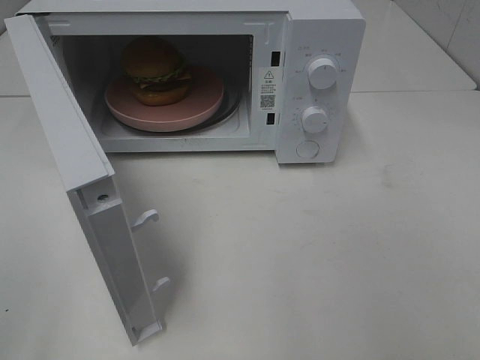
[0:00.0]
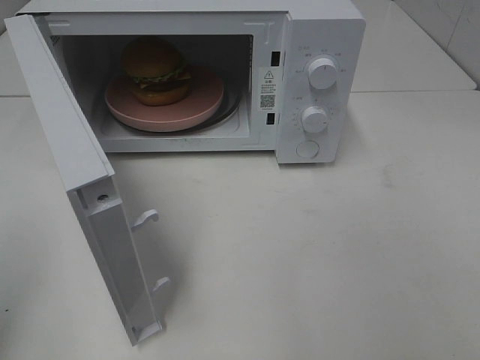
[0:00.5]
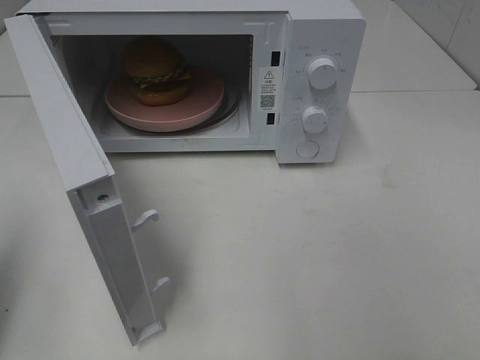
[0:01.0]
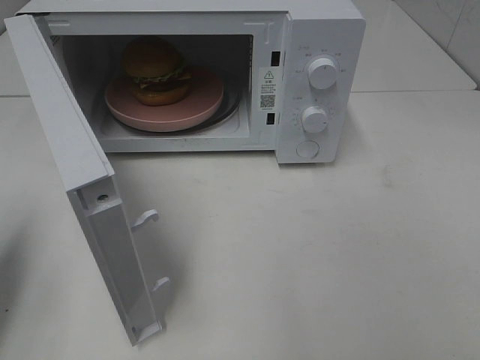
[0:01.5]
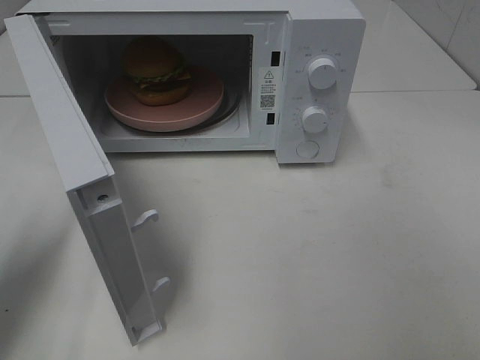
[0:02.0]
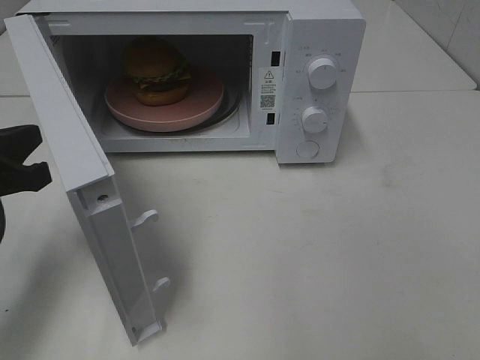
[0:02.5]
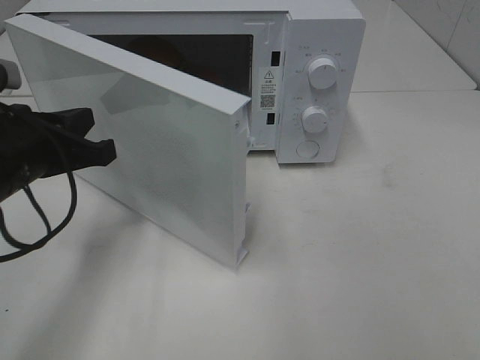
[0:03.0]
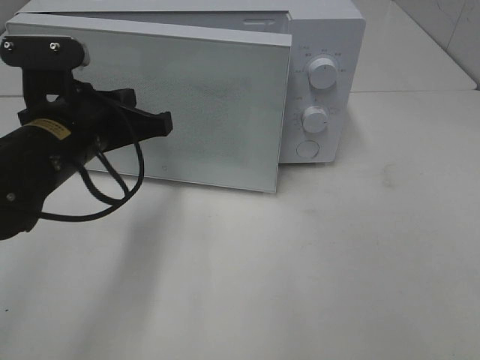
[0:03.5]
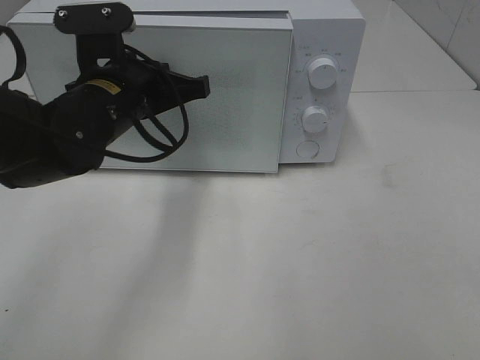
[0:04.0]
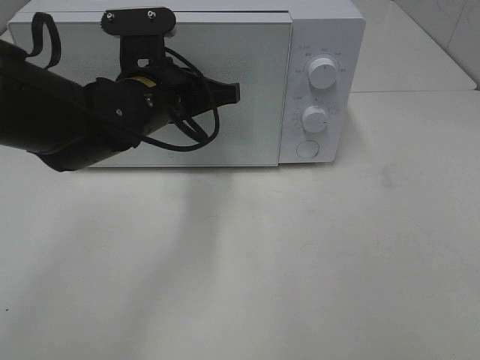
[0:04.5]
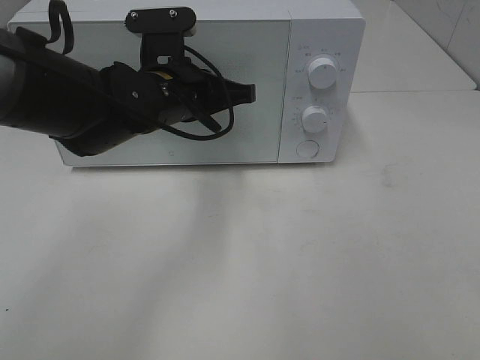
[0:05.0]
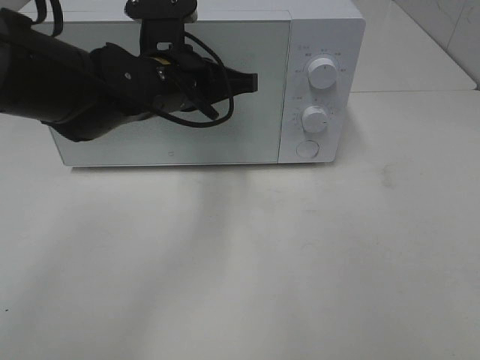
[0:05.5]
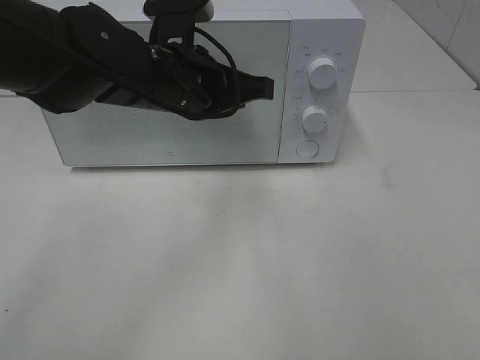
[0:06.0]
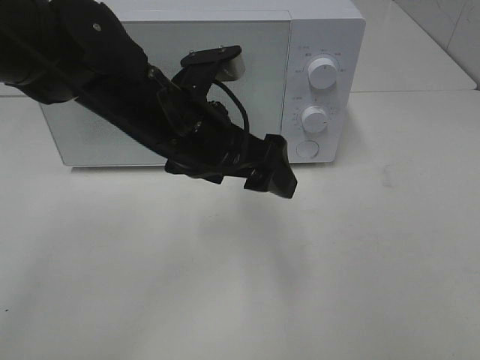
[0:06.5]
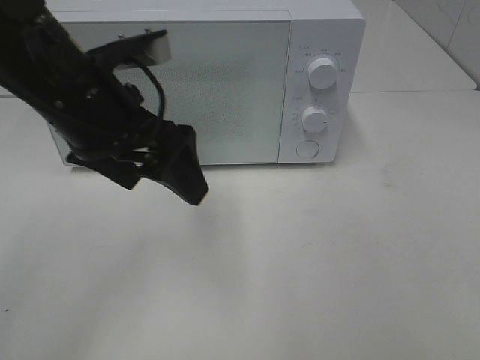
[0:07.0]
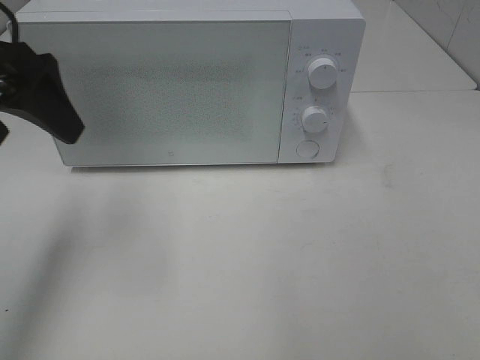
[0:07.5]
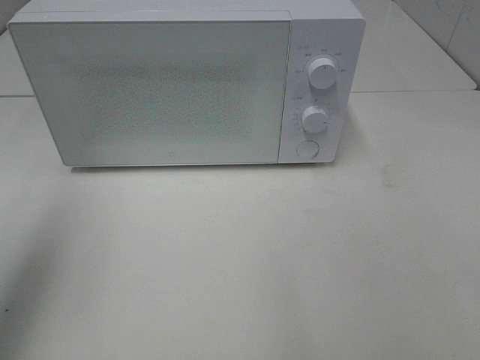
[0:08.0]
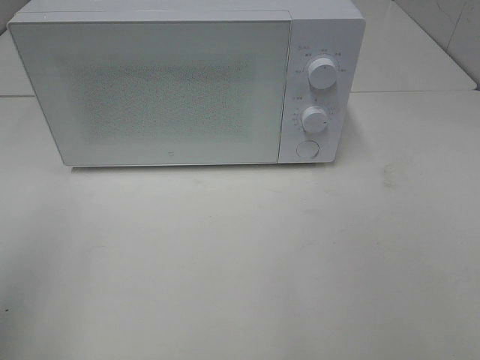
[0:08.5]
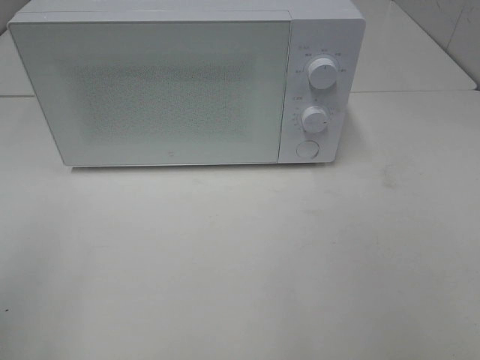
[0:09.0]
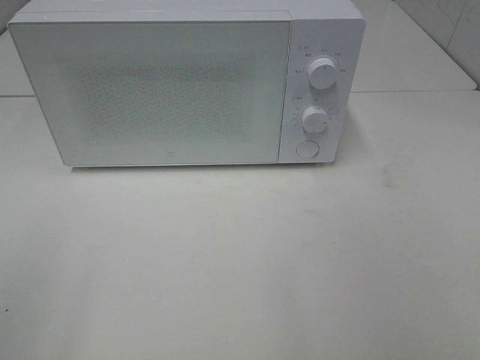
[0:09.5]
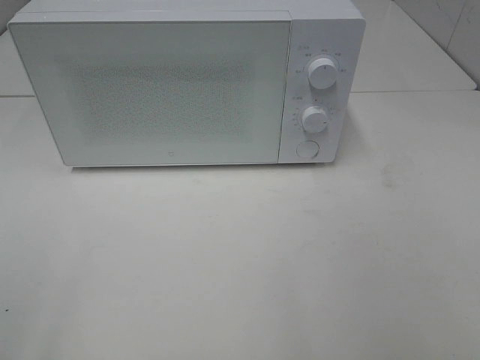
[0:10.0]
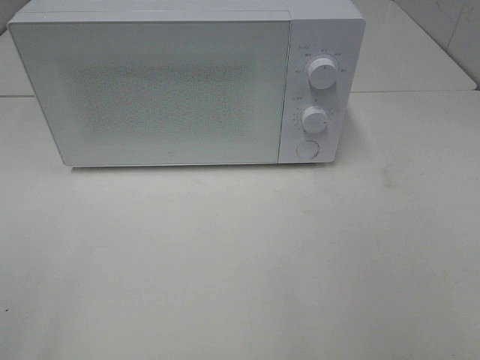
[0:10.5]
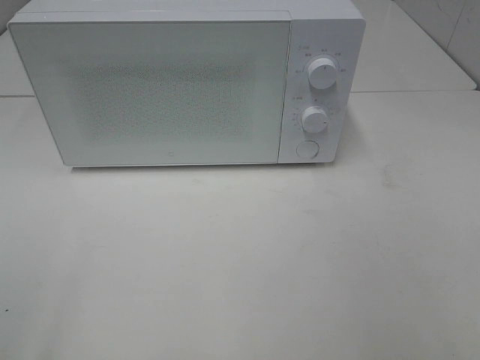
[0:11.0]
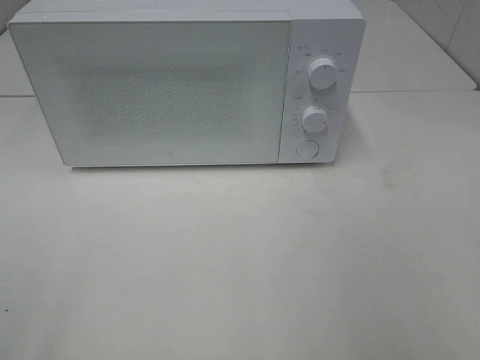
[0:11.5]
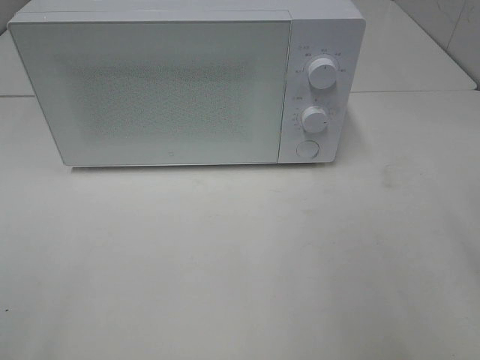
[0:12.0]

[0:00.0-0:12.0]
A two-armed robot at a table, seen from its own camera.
Task of the whole recording: Heat the burger.
Step, 0:00.0 to 0:06.0: Left hand: close the microwave door.
0:00.0 to 0:02.0: The left gripper moves forward and downward, approximately 20 cm, and closes its fingers.
0:02.0 to 0:04.0: The left gripper is displaced to the right and forward by roughly 20 cm.
0:04.0 to 0:06.0: The left gripper moves to the right, some 5 cm.
0:06.0 to 0:08.0: The left gripper shifts about 30 cm to the left, upward and backward, and opens its fingers.
0:08.0 to 0:10.0: The left gripper is displaced backward by roughly 20 cm.

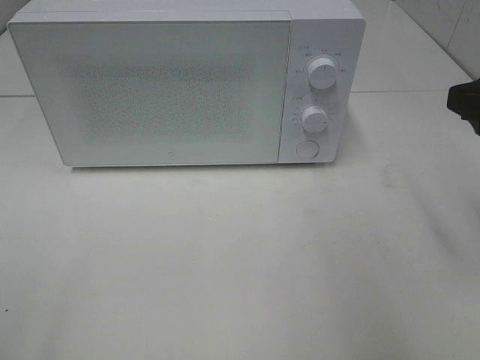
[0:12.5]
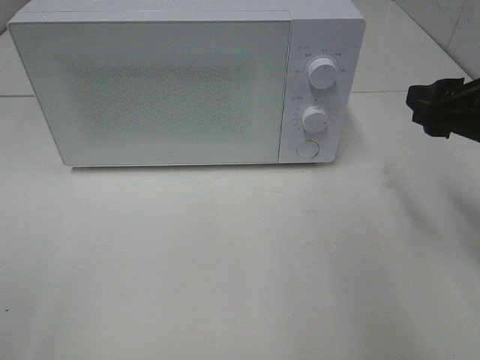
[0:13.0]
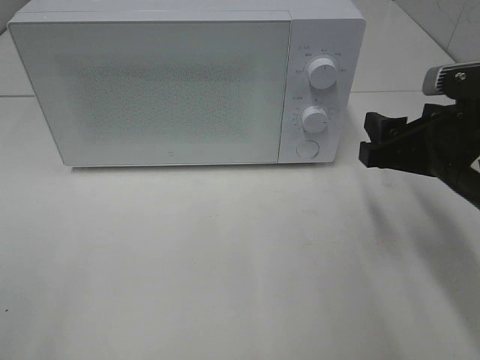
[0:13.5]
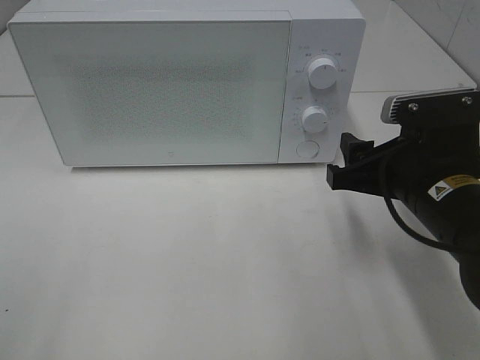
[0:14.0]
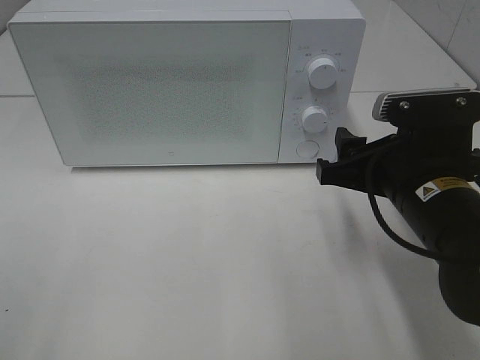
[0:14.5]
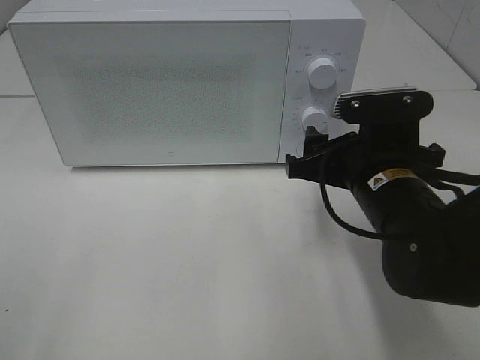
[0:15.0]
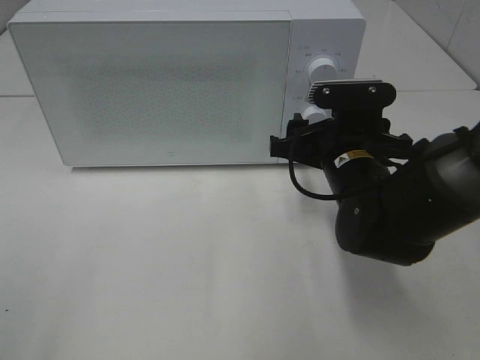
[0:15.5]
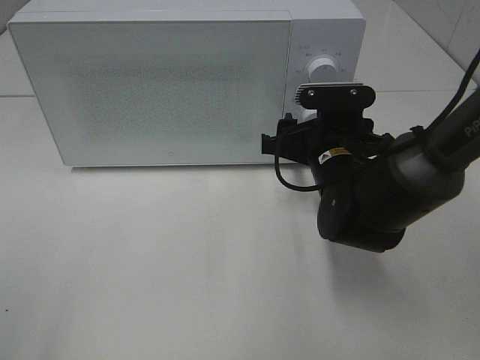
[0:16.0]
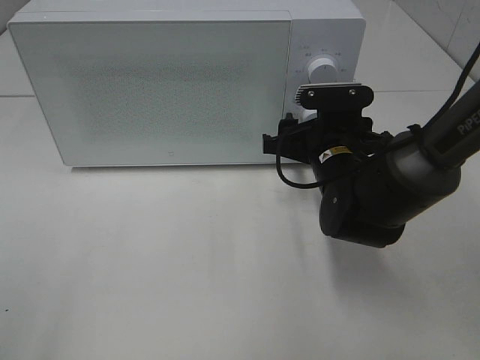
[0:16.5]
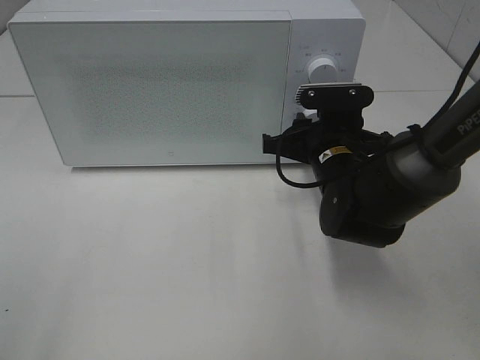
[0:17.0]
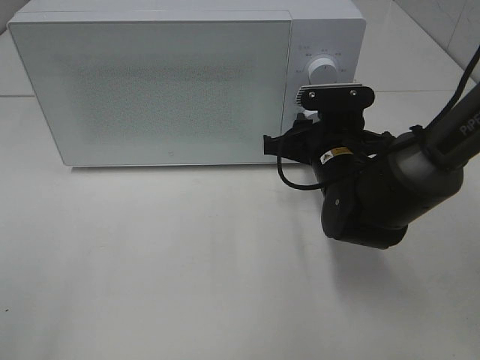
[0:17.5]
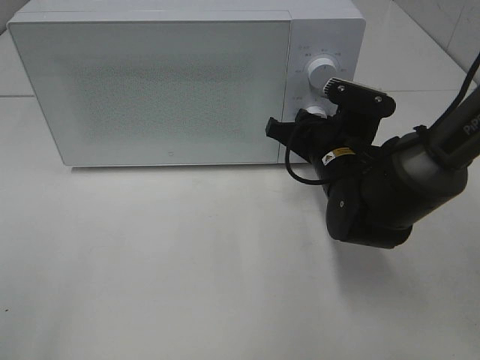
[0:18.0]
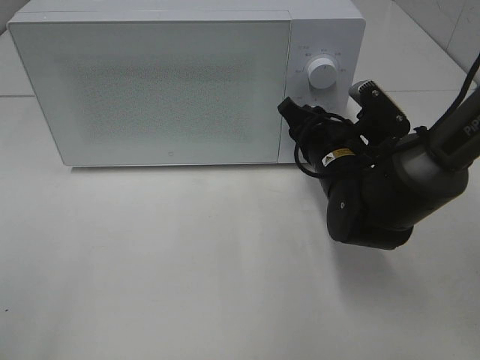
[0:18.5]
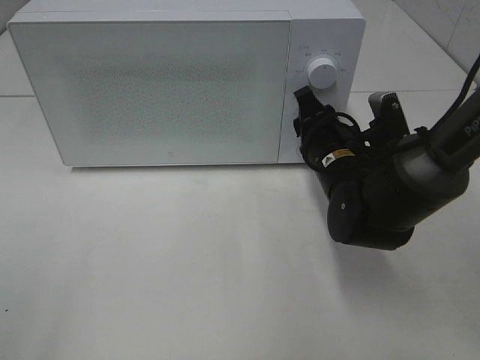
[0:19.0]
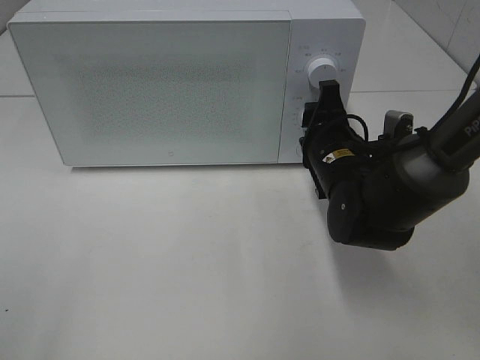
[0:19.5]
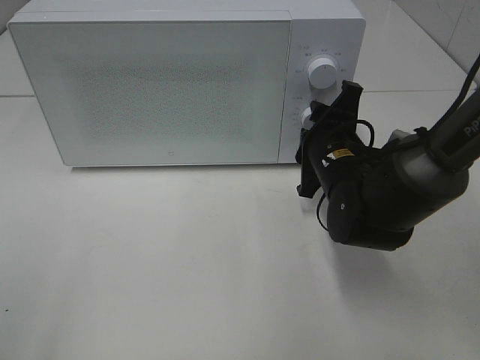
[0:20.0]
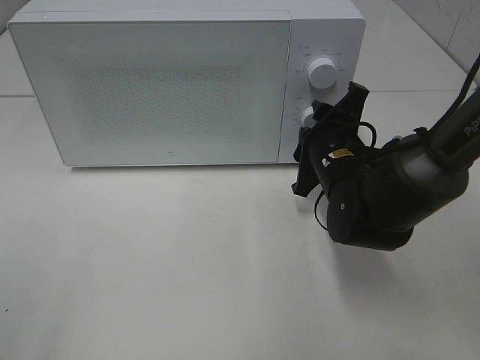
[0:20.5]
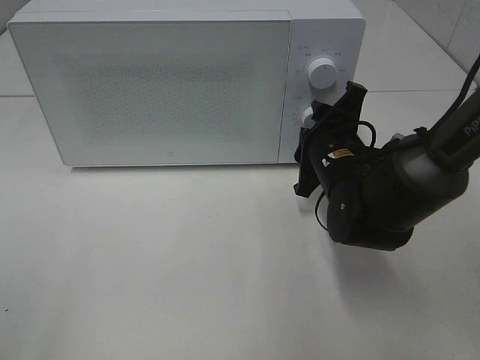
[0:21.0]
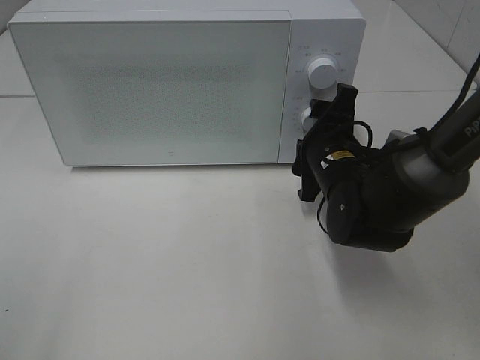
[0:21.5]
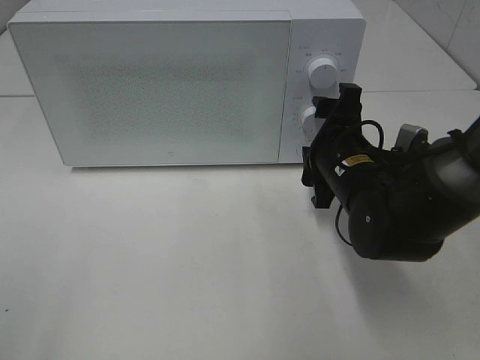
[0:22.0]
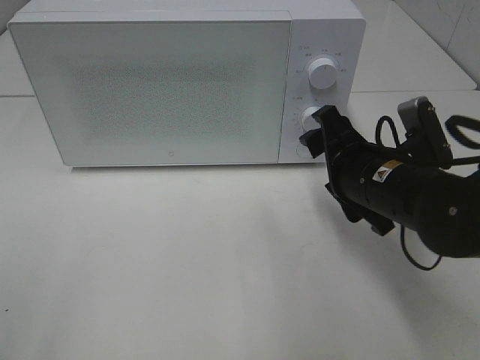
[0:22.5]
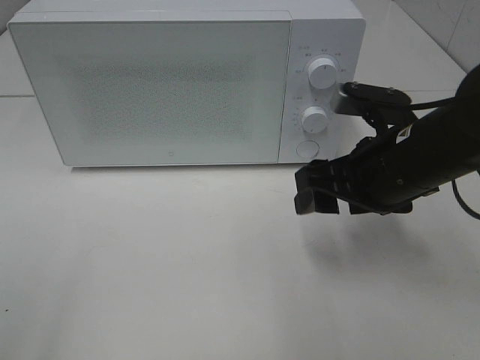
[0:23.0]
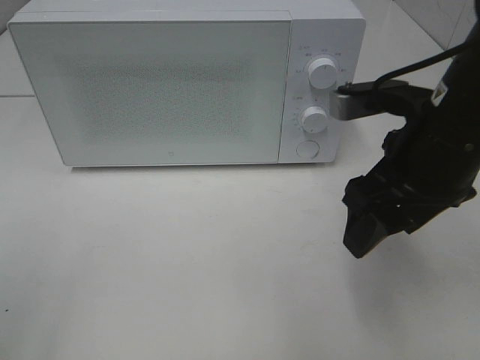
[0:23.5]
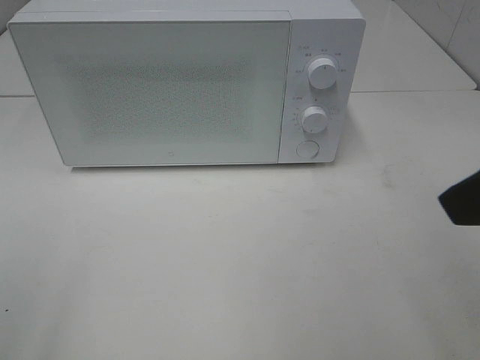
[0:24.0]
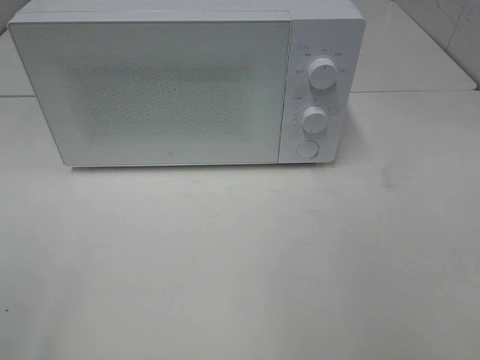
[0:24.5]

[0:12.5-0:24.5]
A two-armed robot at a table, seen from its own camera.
Task of the whole recording: Heat the burger.
Step, 0:12.5 to 0:21.5: Right hand: twist timer button.
0:12.5 to 0:14.5: The right gripper is displaced downward and to the left by roughly 15 cm.
0:14.5 to 0:16.5: The right gripper moves forward and downward, some 10 cm.
0:16.5 to 0:18.5: The right gripper closes up.
0:20.5 to 0:22.5: The right gripper is displaced backward by about 5 cm, and opens its fingers.
0:22.5 to 0:24.5: The right gripper moves backward, upward and to the right, roughly 30 cm.

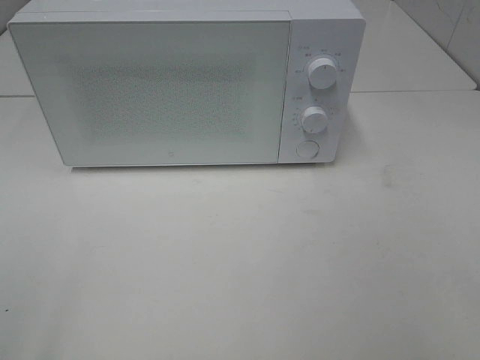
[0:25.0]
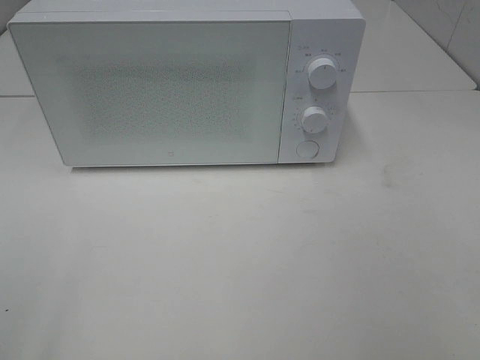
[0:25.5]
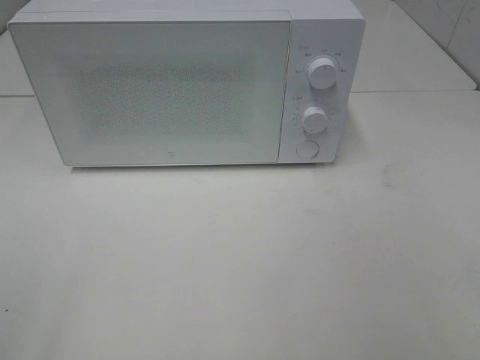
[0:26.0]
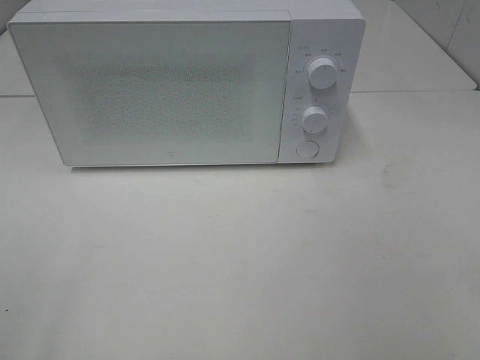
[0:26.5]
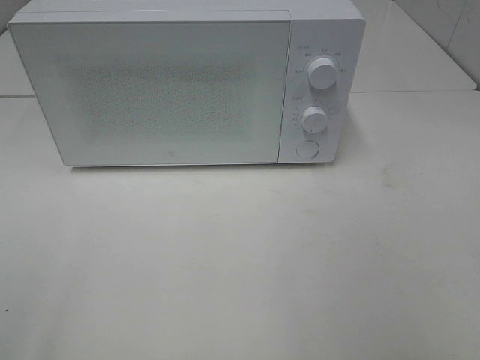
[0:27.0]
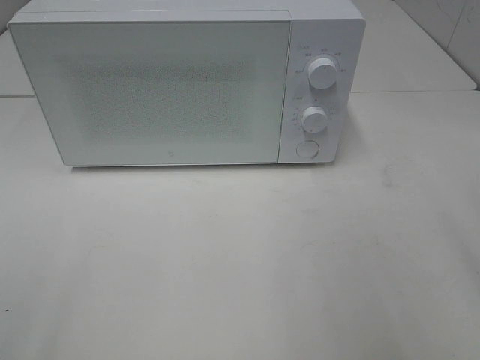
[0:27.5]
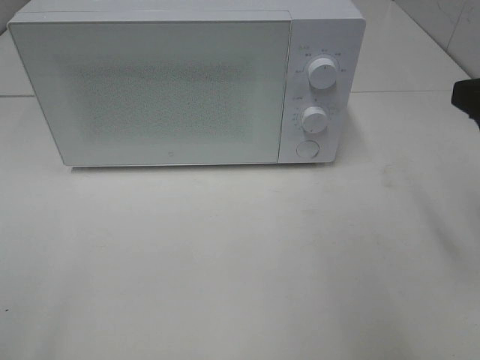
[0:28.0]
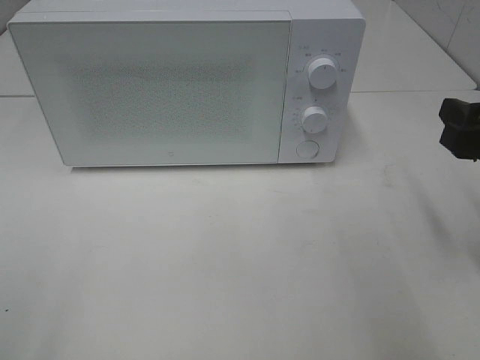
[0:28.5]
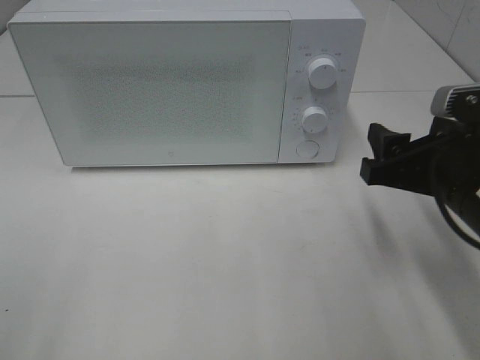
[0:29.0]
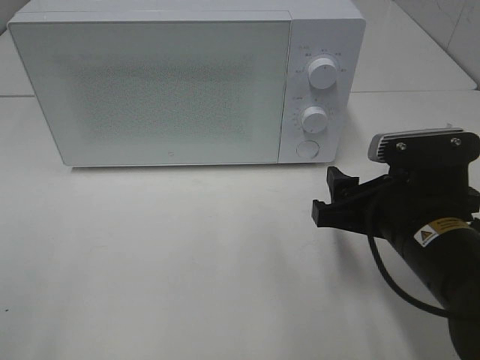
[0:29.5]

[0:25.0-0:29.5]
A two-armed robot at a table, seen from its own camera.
Task of the whole recording: Heat the burger.
0:27.0 to 0:29.5: The right gripper shifts approximately 25 cm downward, forward and to the left.
